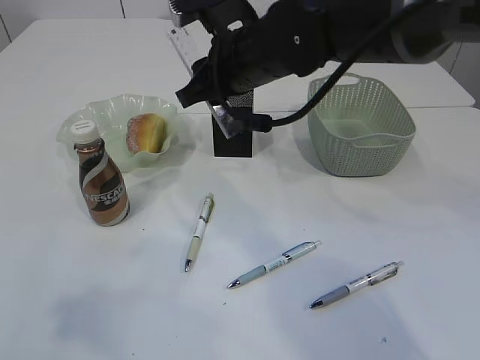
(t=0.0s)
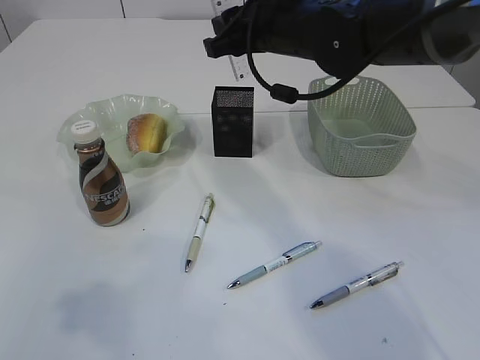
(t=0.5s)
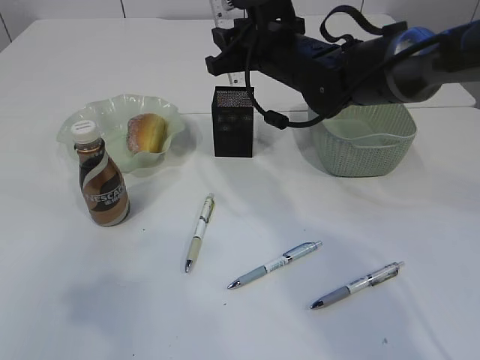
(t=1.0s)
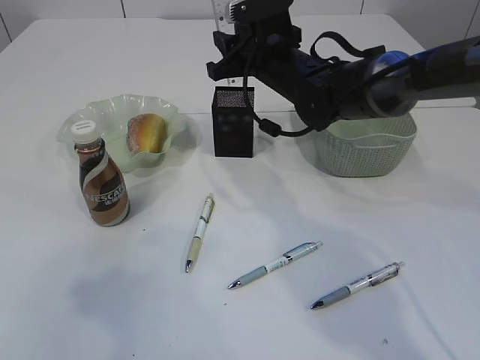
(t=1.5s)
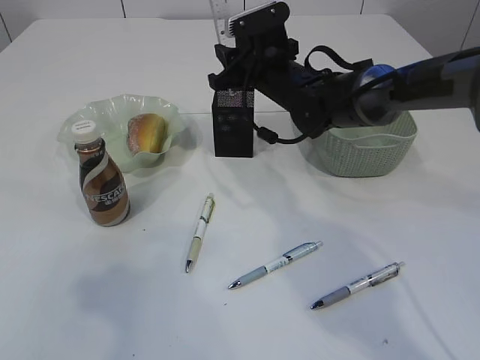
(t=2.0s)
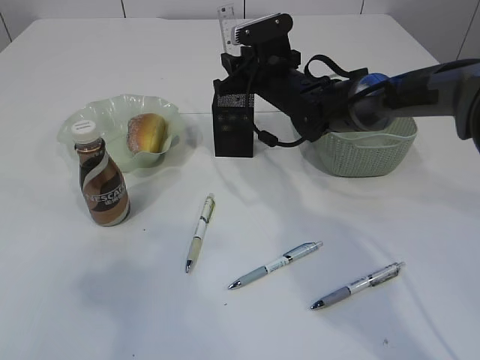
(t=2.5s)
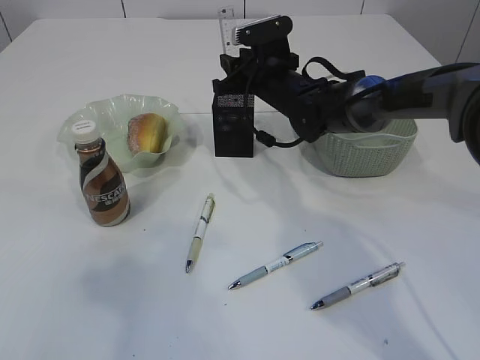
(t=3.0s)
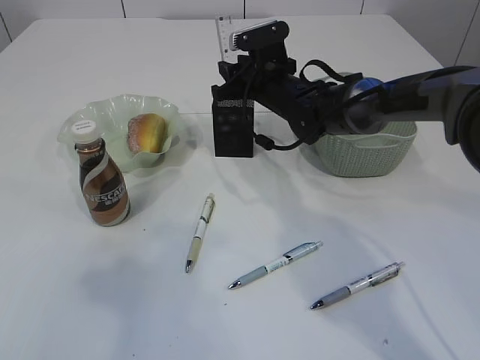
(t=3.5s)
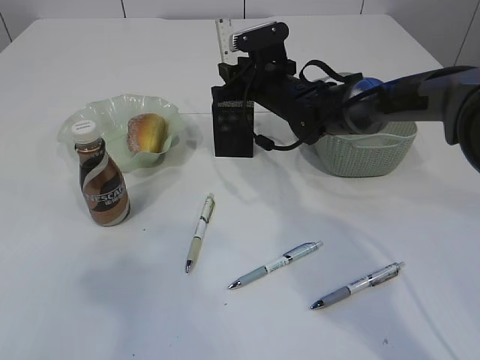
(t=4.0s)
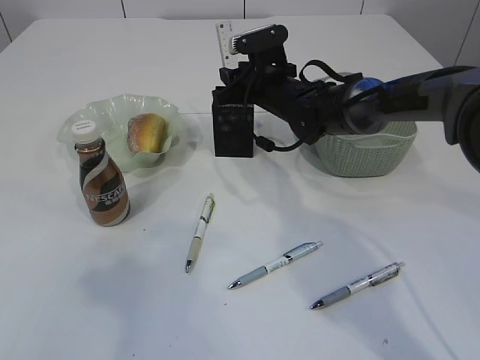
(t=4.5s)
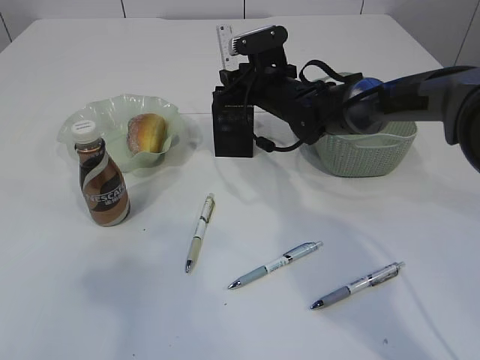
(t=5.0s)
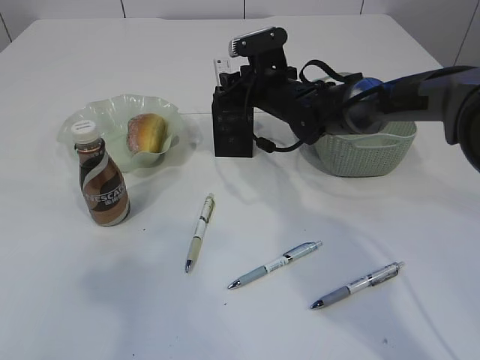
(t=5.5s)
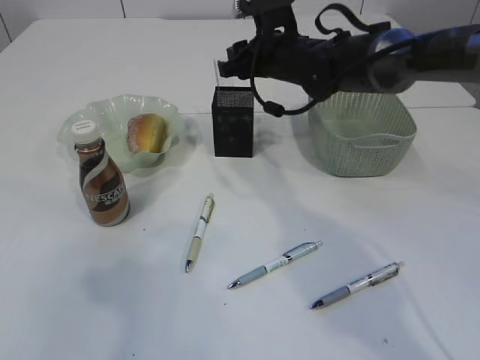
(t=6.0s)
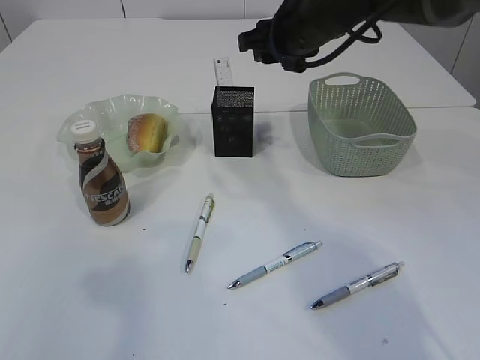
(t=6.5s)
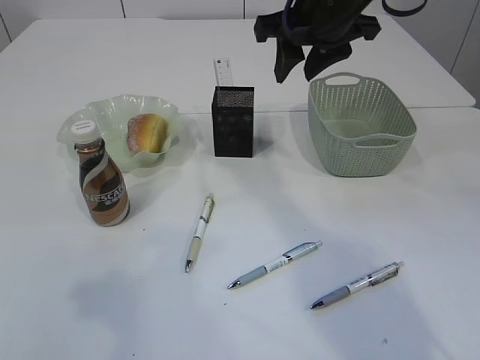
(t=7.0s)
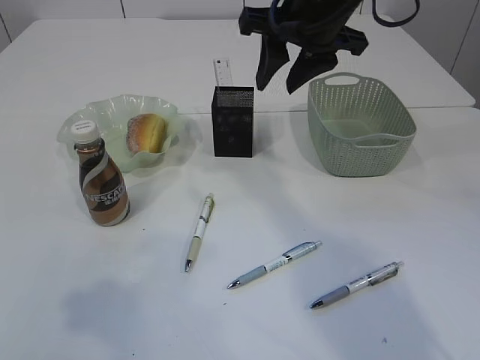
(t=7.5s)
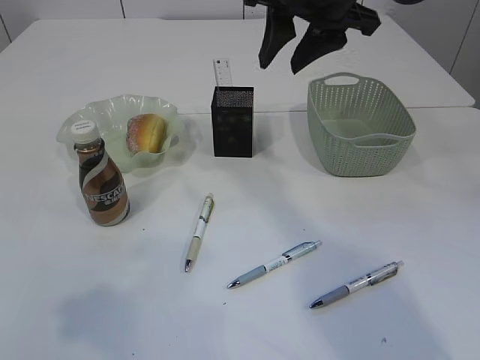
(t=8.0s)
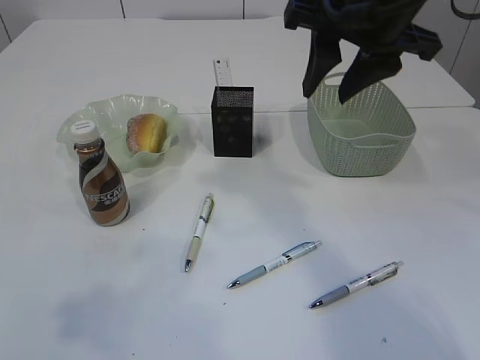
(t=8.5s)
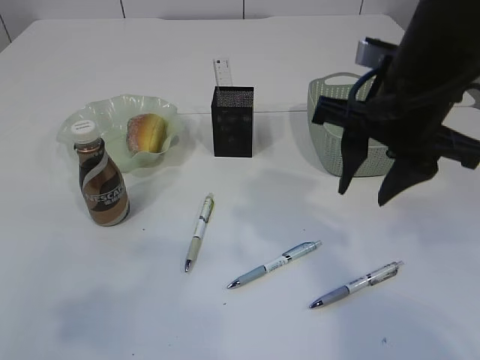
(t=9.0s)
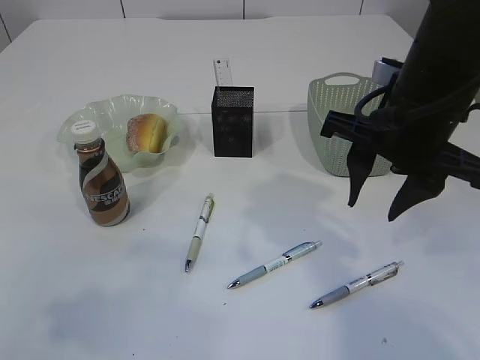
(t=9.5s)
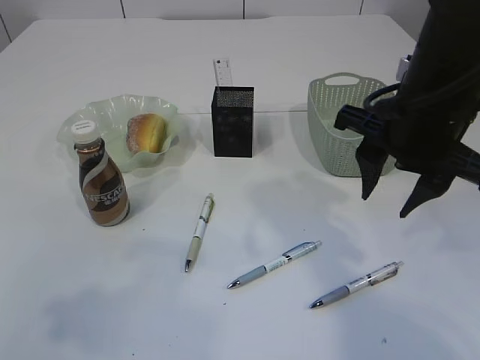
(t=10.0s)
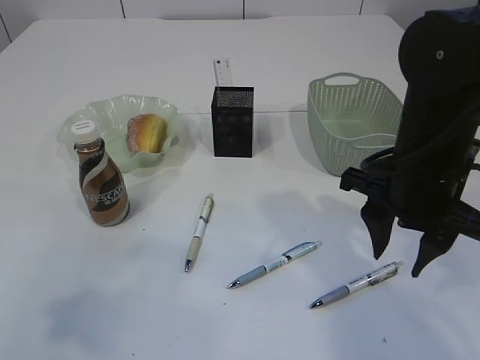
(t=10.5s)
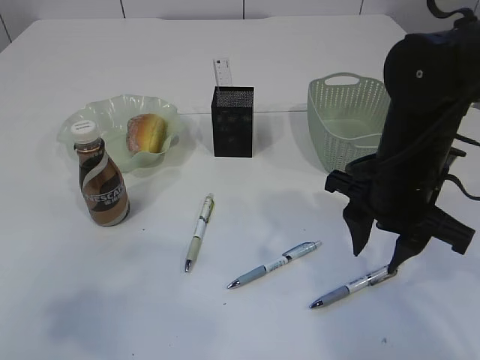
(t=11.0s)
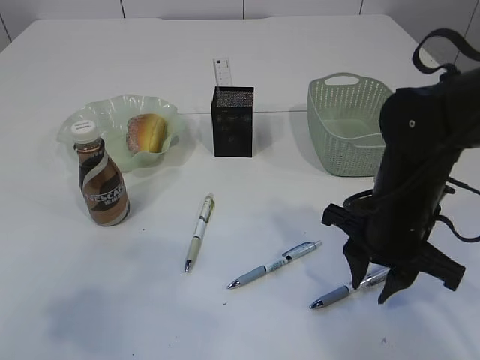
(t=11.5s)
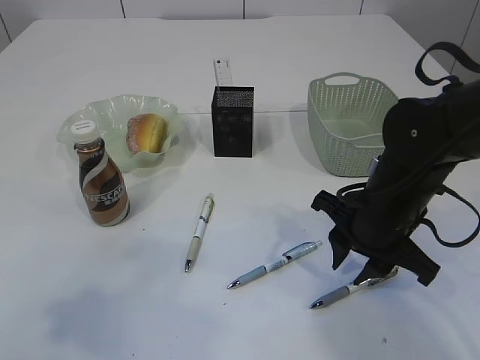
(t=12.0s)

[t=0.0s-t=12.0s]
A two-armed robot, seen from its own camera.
Step, t=0.0s to t=6.0s: Place the ruler into the pen holder.
t=0.0s to t=2.0s: The right gripper goes approximately 10 cm forward and downward.
t=2.0s to t=6.0s: There are only small adjustments of the grippers.
t=6.0s to t=8.0s: The right gripper heads upward and backward, covering about 20 cm.
t=8.0s to t=10.0s: The right gripper moves backward, downward and to the right, approximately 15 cm.
t=10.0s to t=12.0s: The right gripper goes approximately 15 cm downward.

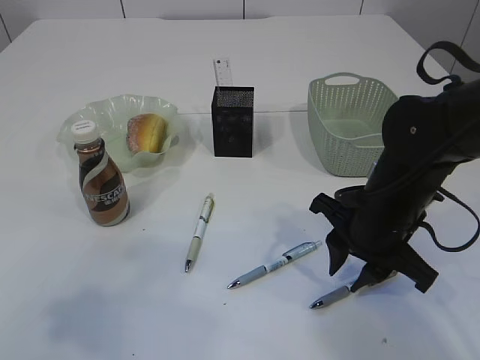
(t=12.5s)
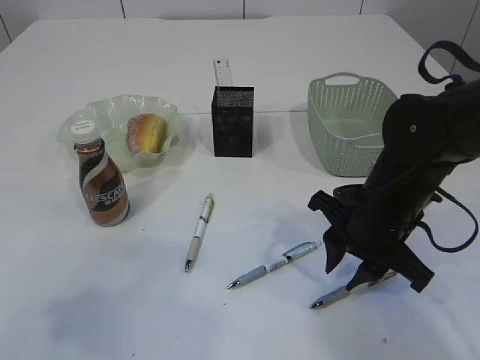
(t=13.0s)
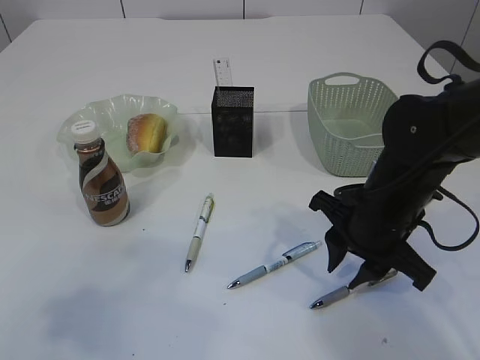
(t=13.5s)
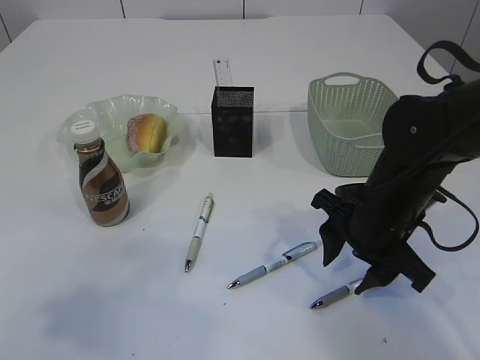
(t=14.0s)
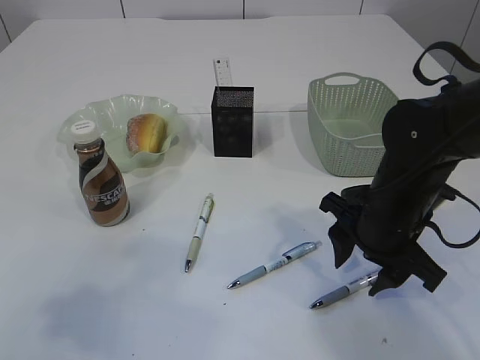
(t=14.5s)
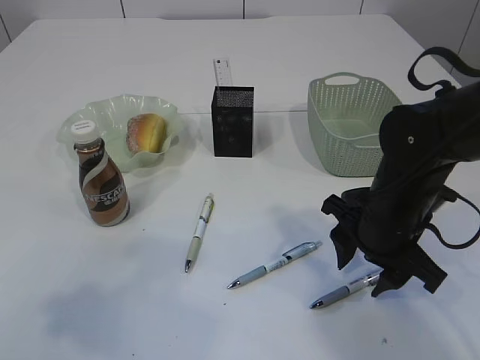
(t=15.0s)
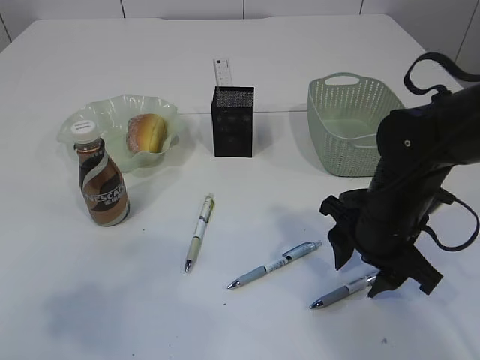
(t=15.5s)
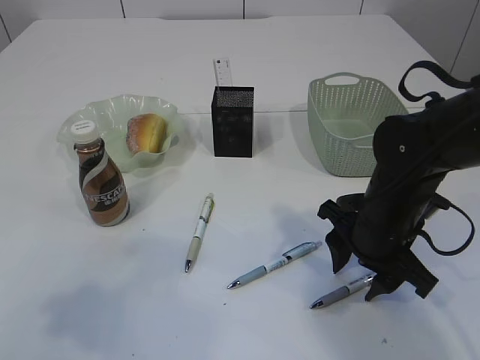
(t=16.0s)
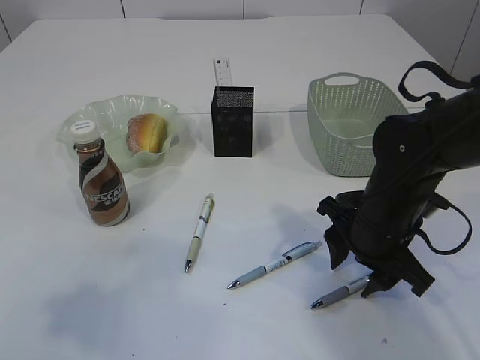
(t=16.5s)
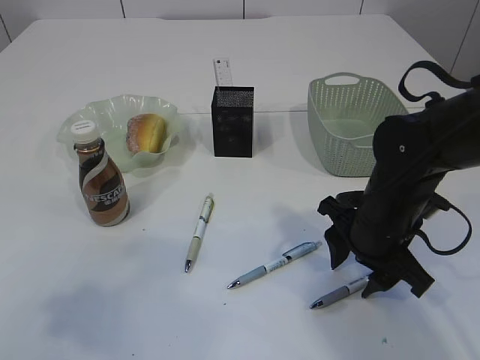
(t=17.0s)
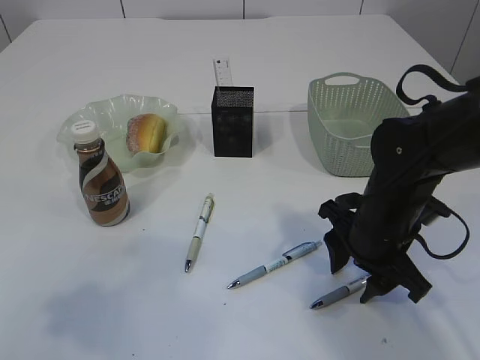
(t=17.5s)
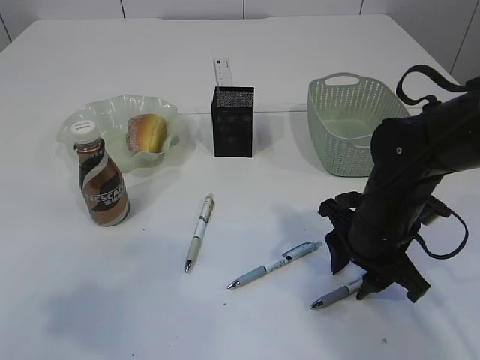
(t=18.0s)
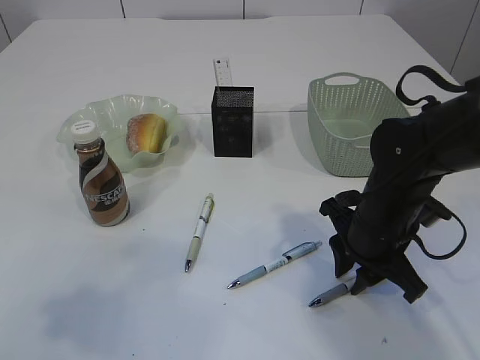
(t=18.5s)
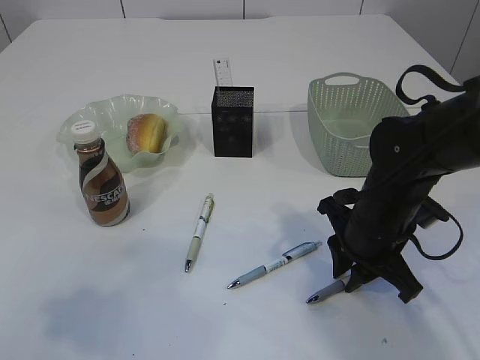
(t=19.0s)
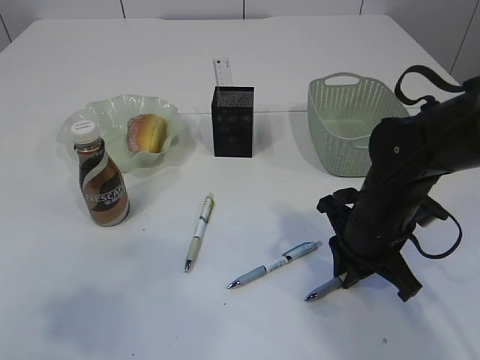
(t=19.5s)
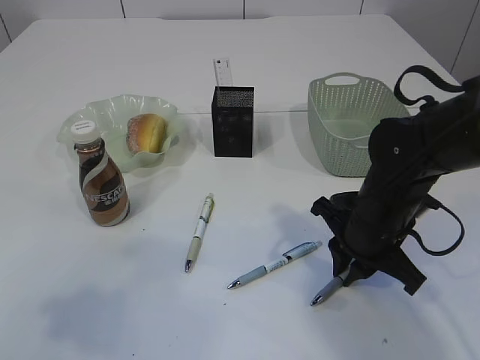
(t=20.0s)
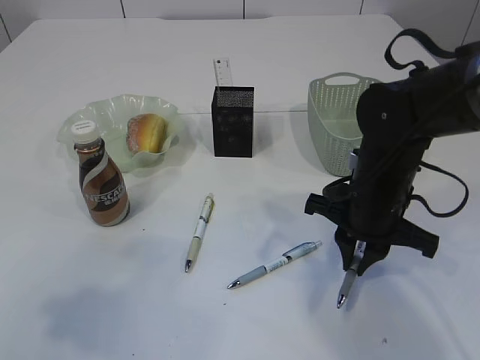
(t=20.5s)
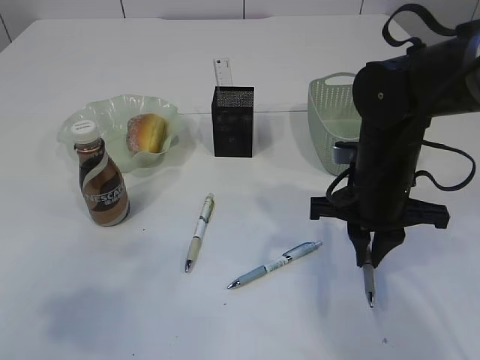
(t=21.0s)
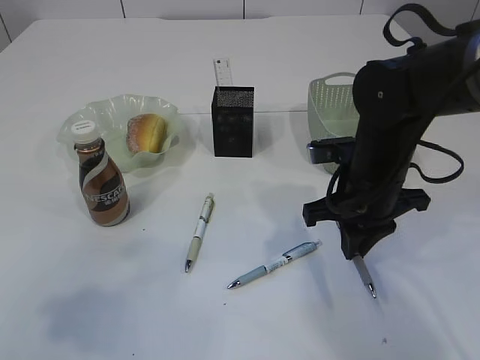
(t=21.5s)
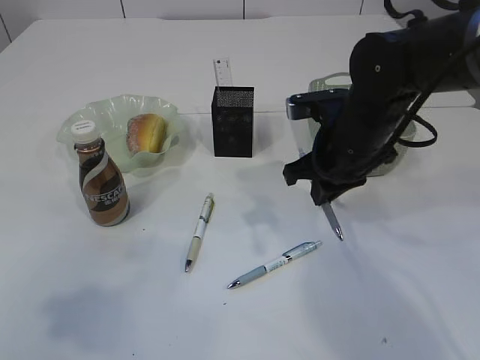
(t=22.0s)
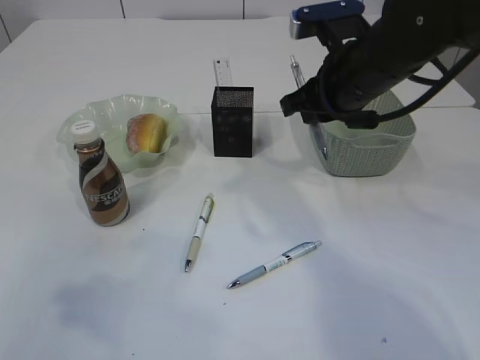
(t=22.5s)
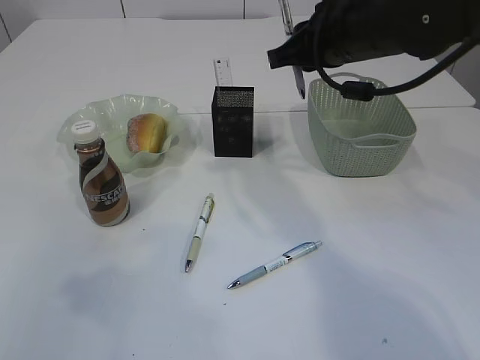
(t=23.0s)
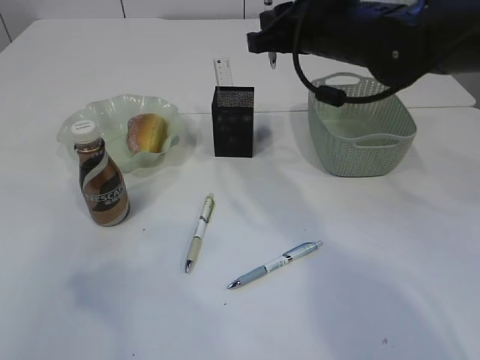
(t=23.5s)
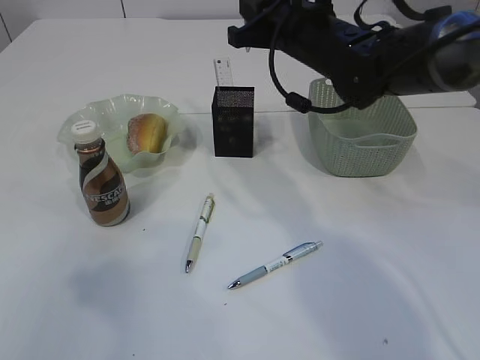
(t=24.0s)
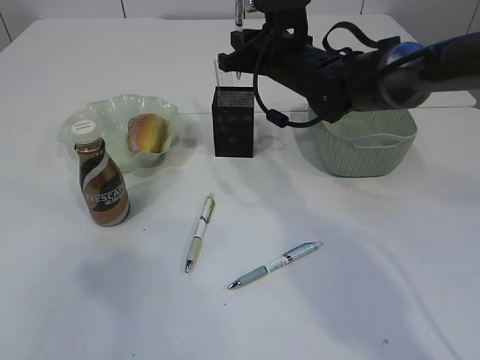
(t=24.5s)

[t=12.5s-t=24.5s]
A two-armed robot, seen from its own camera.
Step, t=12.5s to t=21.5s: Pick up the pen with right arm.
t=12.5s to t=16.5s: The grippers make only small movements.
t=16.5s to t=18.5s: The right gripper closes.
t=20.5s to t=22.5s: The right gripper moves upward and forward, approximately 10 cm.
t=22.5s to t=24.5s: The right gripper travels forward by roughly 10 cm.

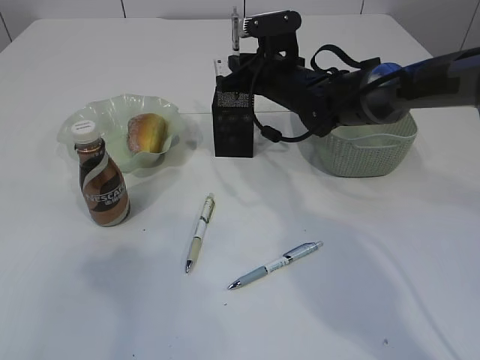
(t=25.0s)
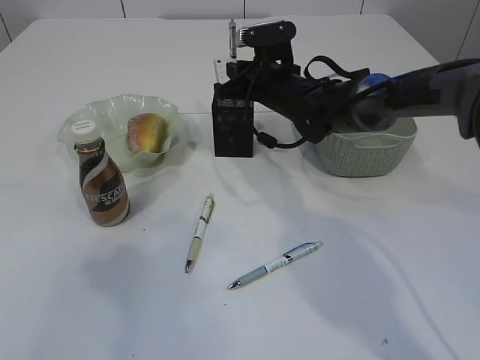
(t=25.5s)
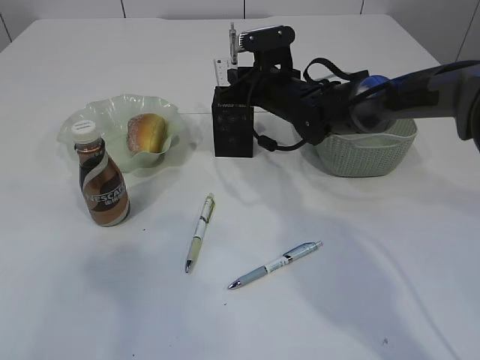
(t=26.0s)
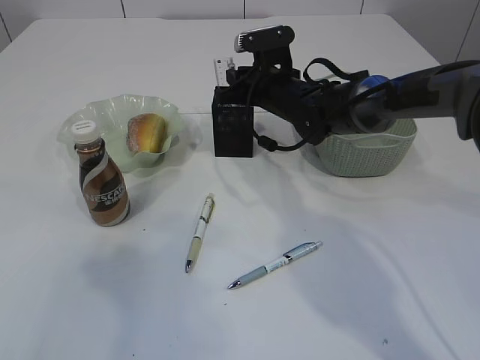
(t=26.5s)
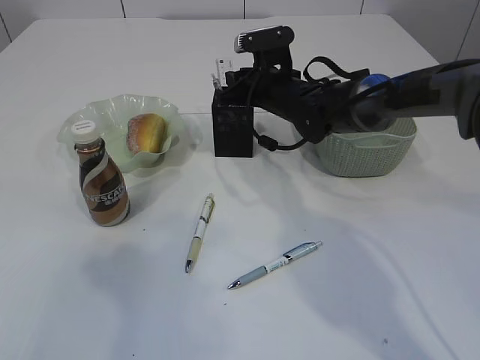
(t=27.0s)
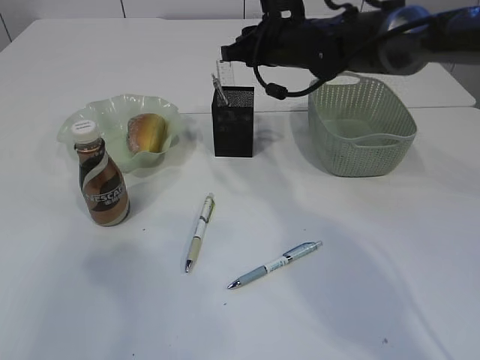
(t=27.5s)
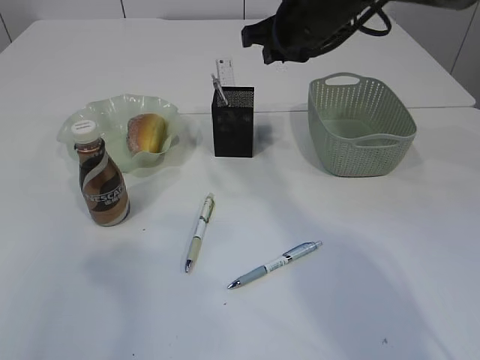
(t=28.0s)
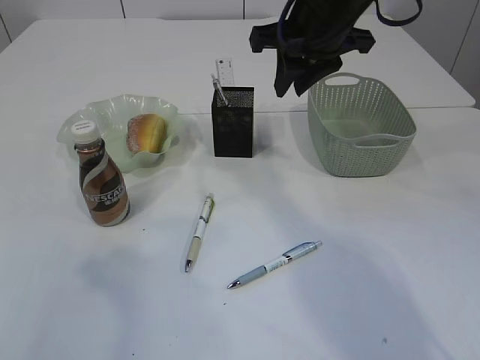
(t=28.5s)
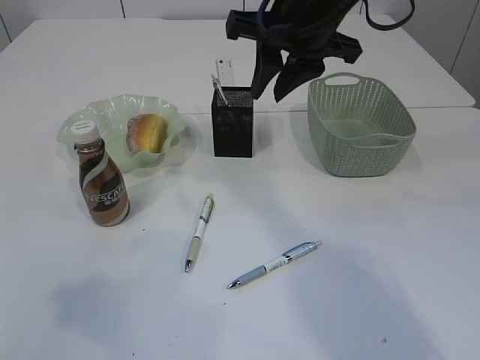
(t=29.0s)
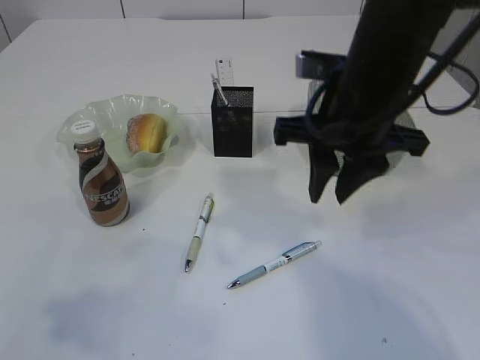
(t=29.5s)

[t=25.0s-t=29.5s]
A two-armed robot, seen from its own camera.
Step, t=25.0s to t=28.5s: Place the pen into the pen holder.
t=25.0s to t=27.0s: There are only small adjustments of the grippers.
t=27.0s to t=29.5s: The right gripper goes some 20 cm backward and upward.
